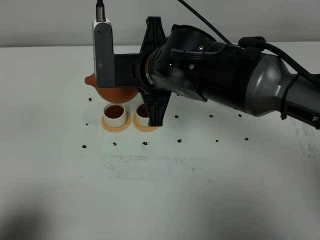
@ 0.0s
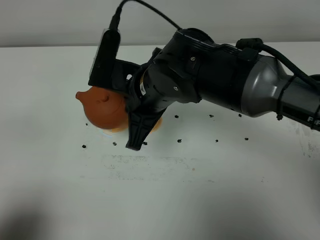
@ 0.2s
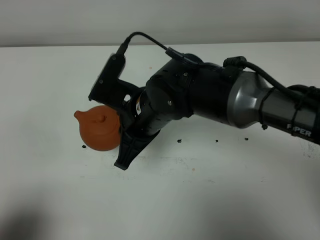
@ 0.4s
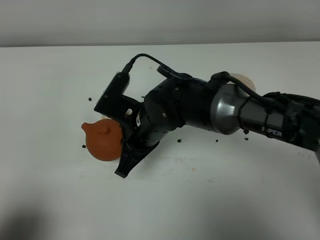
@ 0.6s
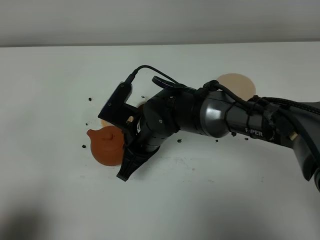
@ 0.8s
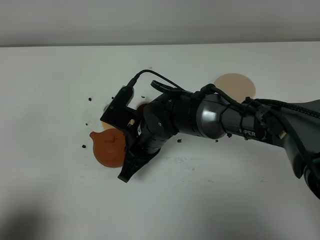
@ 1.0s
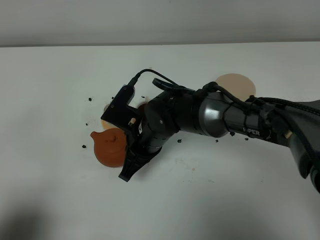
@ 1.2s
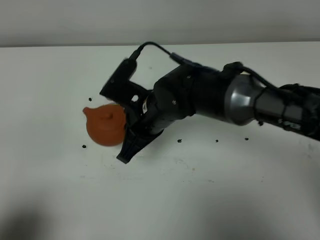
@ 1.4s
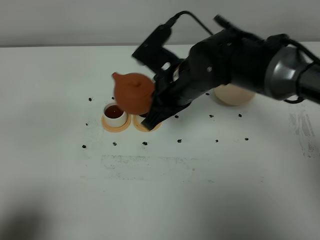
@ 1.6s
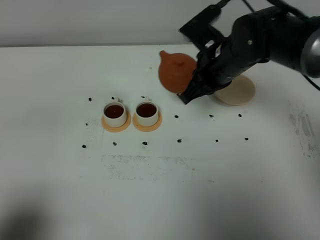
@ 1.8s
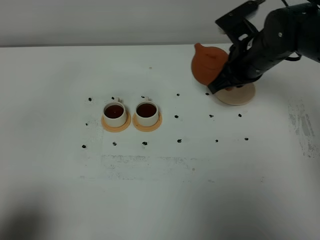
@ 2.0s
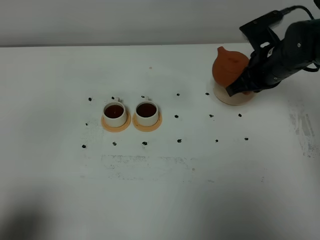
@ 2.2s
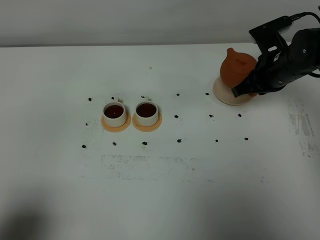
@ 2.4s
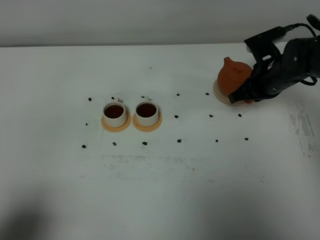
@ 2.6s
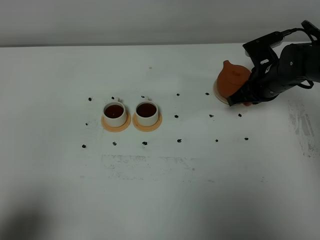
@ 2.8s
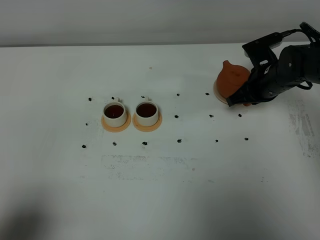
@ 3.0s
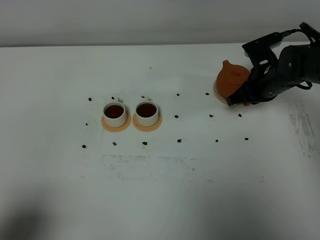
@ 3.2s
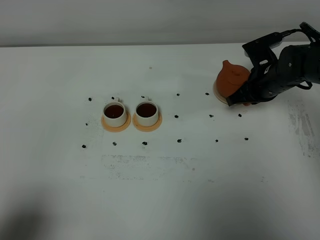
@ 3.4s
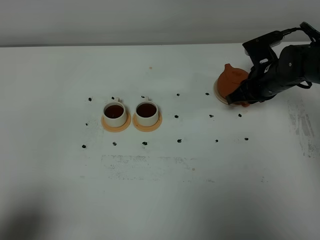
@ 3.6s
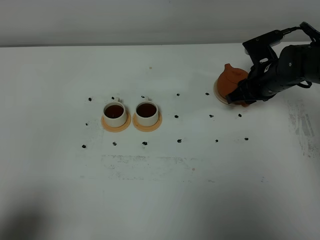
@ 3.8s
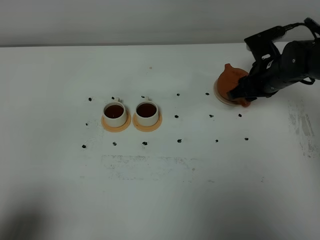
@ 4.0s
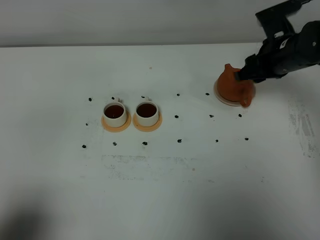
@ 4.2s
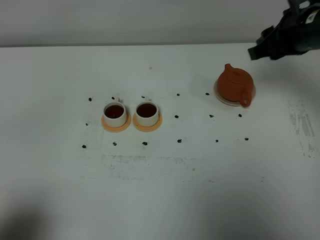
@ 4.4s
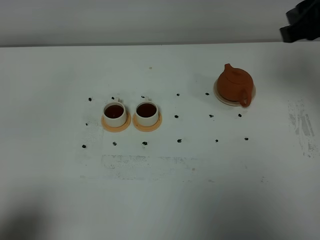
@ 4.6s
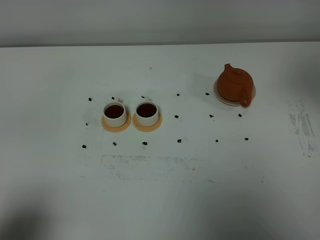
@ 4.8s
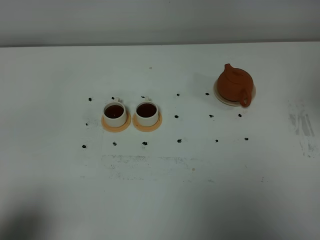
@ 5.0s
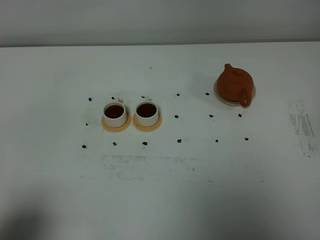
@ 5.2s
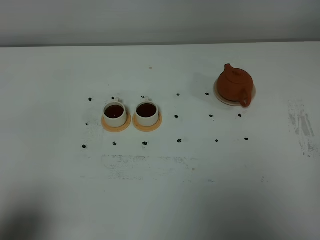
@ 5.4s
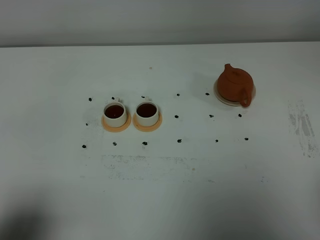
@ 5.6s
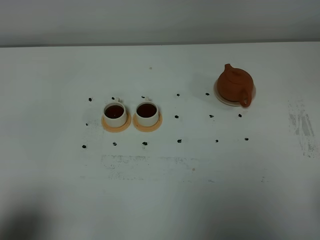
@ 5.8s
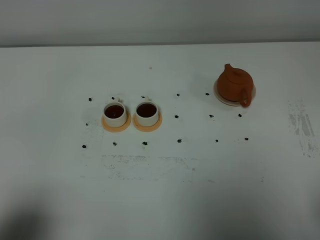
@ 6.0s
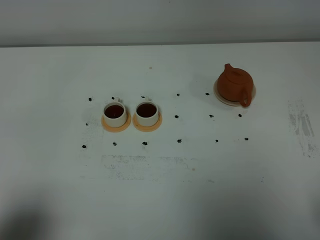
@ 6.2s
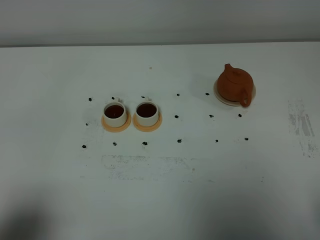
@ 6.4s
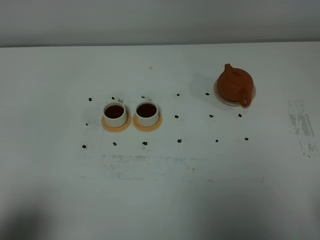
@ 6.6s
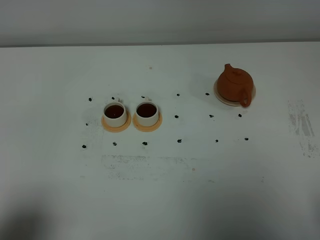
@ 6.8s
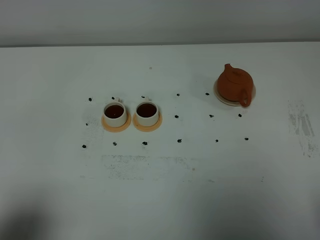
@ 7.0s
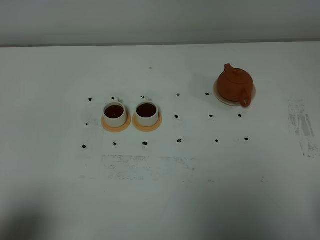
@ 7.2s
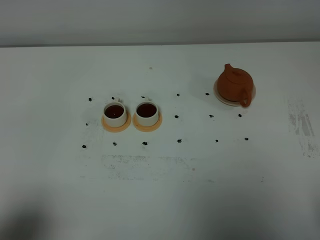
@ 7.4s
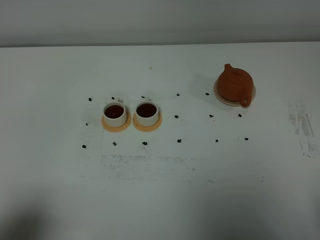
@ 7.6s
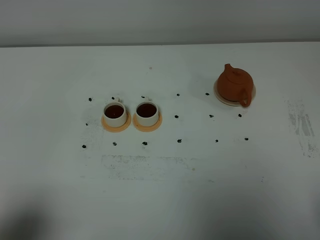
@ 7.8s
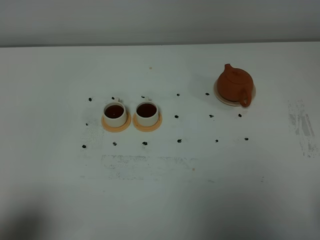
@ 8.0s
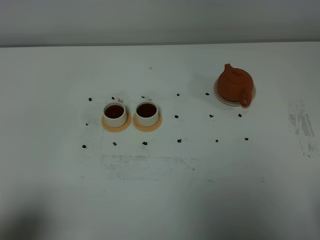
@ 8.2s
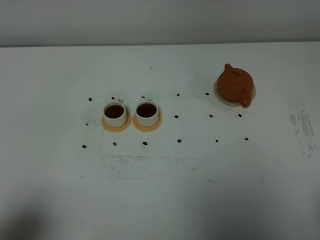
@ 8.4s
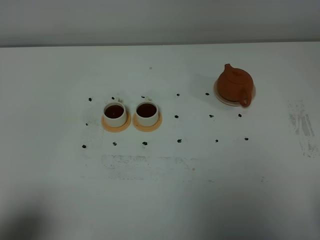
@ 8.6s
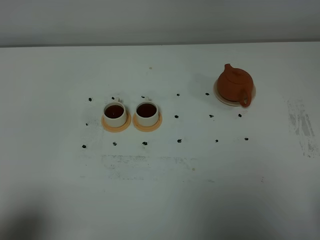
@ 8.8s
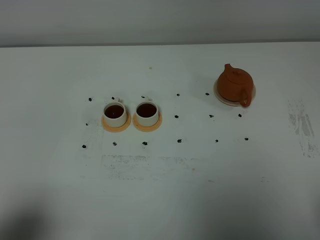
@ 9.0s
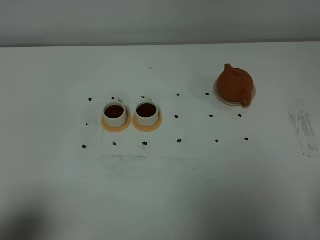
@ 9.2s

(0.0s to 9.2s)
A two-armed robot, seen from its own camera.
Task of the whole recording: grasp the brown teapot and pour the tea into the two white teacups one by one, put the brown teapot back in its original place.
0.0s - 1.6s: The right gripper reaches roughly 15 cm downward, then returns.
1.6s - 3.0s: The right gripper is displaced to the right, forward and downward by about 20 cm.
3.0s - 4.6s: The right gripper travels upward and backward by about 25 cm, and opens up.
4.6s - 6.2s: The right gripper goes about 30 cm backward and downward.
6.2s - 7.6s: Neither gripper changes place.
7.6s - 9.2s: Both grippers stay put.

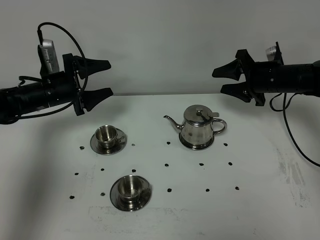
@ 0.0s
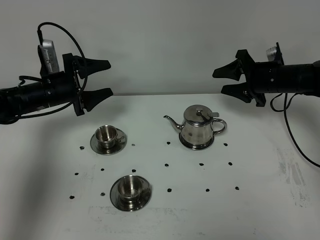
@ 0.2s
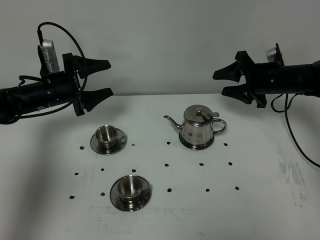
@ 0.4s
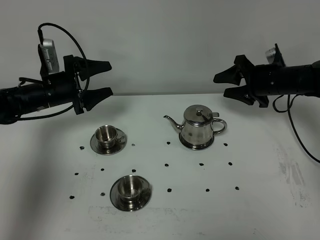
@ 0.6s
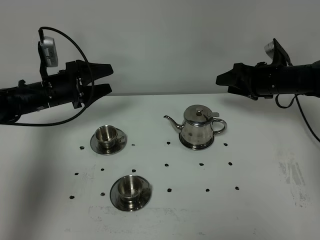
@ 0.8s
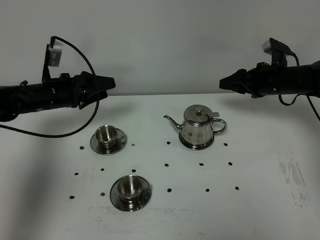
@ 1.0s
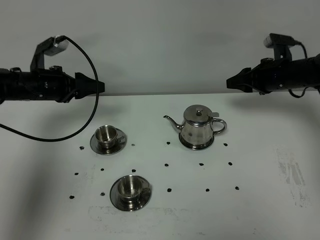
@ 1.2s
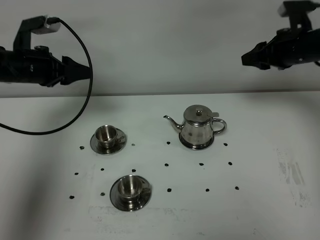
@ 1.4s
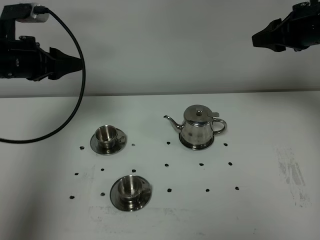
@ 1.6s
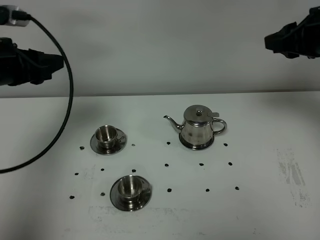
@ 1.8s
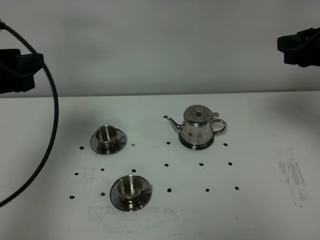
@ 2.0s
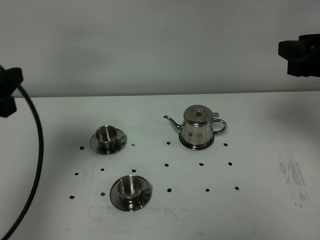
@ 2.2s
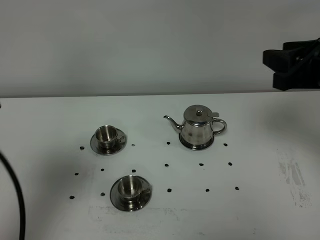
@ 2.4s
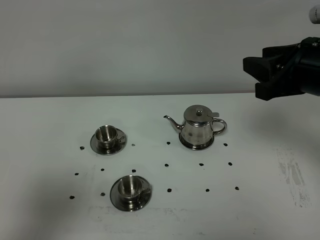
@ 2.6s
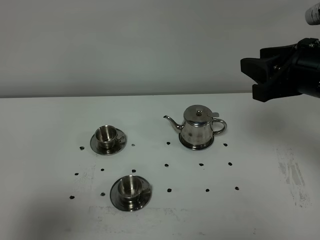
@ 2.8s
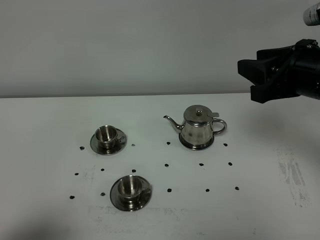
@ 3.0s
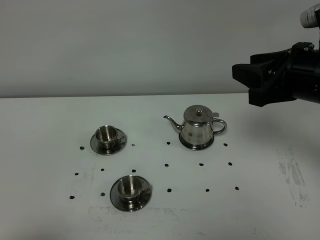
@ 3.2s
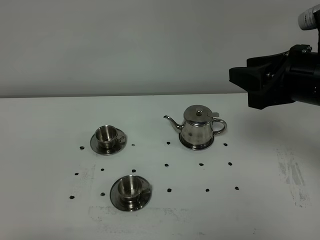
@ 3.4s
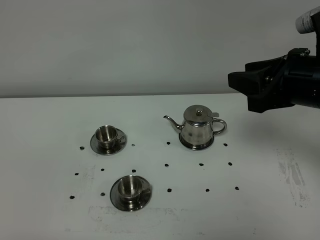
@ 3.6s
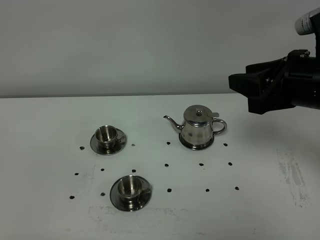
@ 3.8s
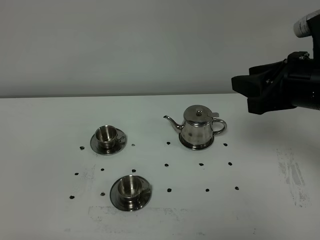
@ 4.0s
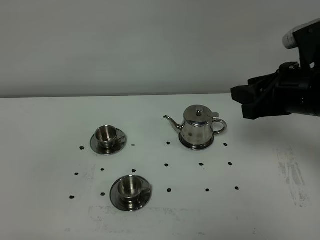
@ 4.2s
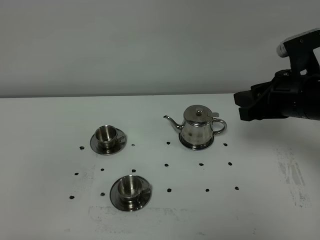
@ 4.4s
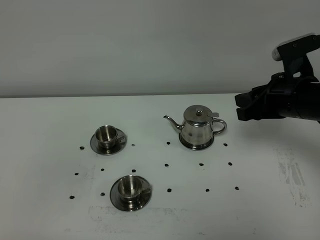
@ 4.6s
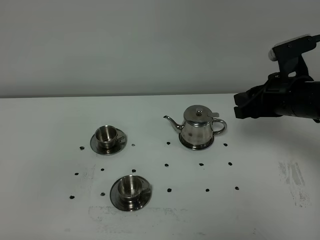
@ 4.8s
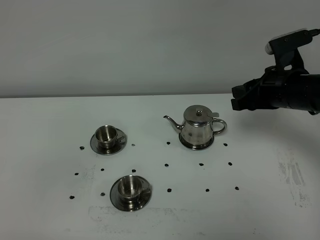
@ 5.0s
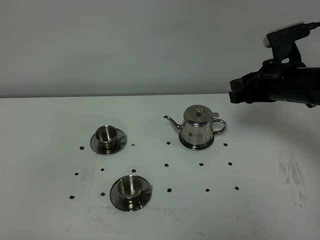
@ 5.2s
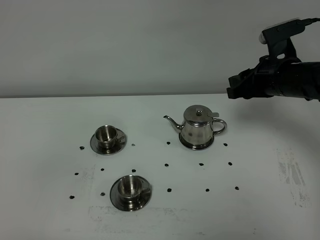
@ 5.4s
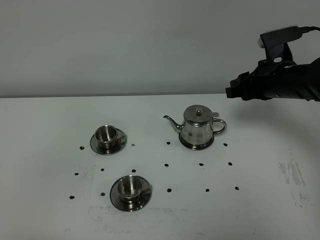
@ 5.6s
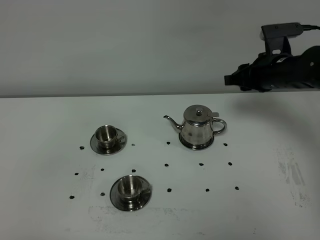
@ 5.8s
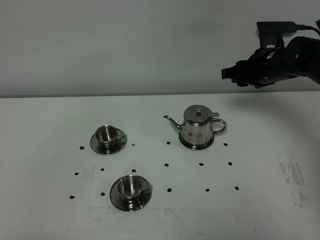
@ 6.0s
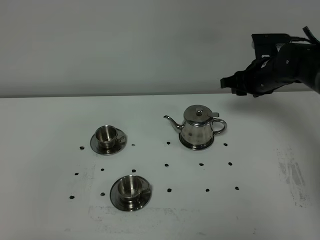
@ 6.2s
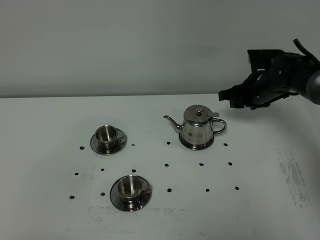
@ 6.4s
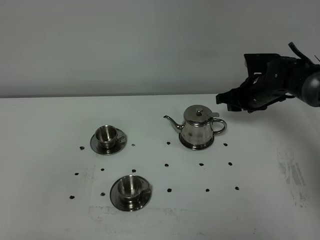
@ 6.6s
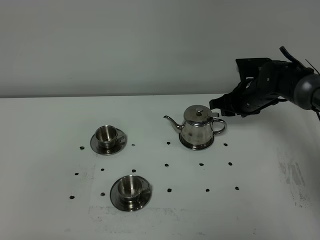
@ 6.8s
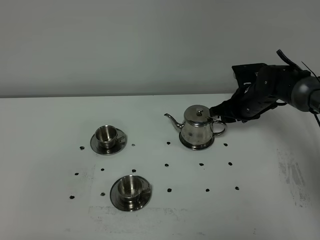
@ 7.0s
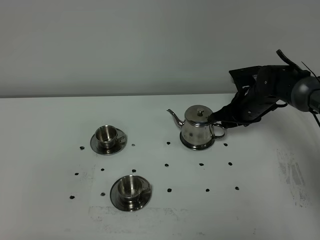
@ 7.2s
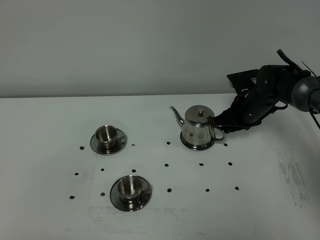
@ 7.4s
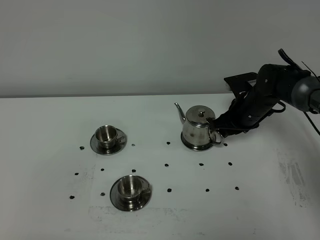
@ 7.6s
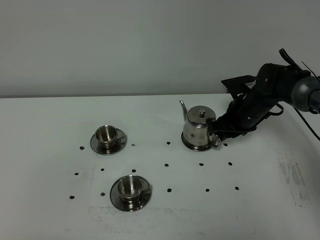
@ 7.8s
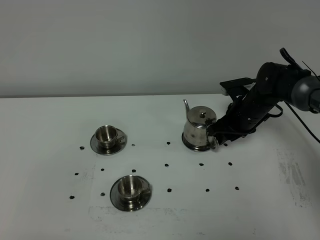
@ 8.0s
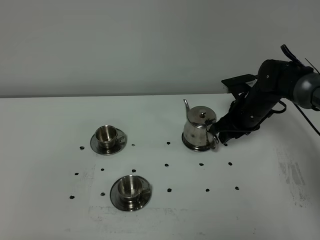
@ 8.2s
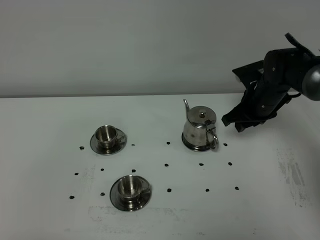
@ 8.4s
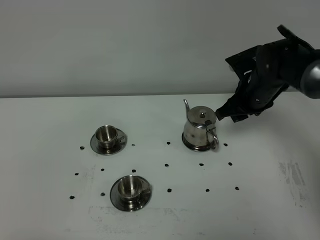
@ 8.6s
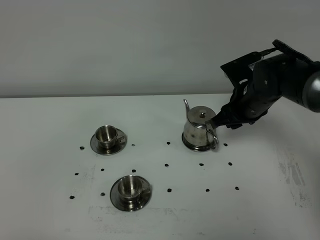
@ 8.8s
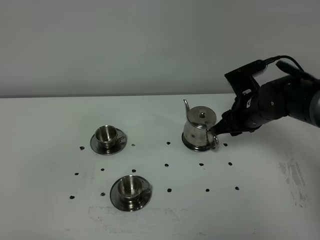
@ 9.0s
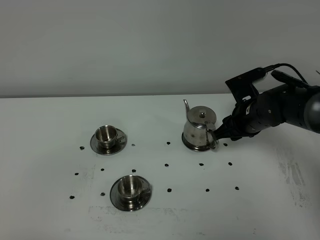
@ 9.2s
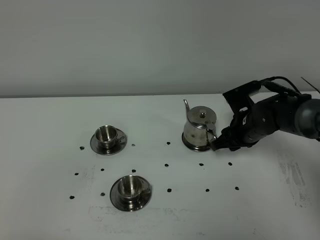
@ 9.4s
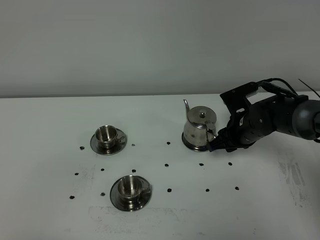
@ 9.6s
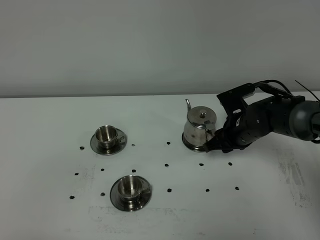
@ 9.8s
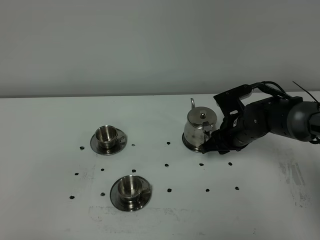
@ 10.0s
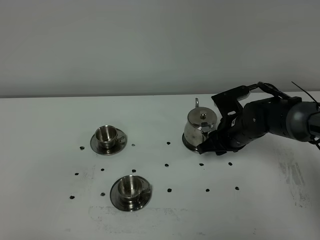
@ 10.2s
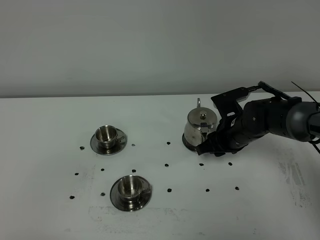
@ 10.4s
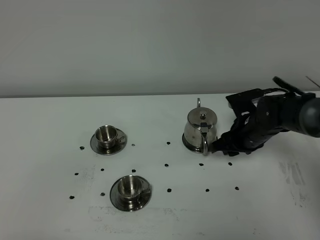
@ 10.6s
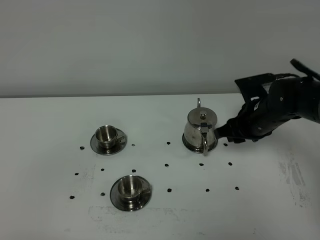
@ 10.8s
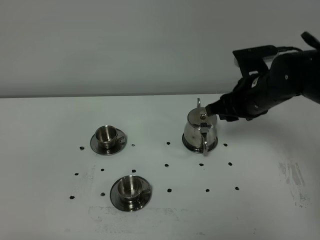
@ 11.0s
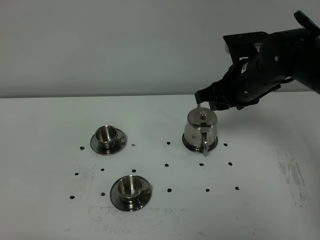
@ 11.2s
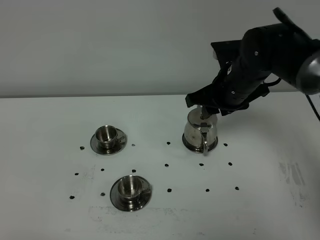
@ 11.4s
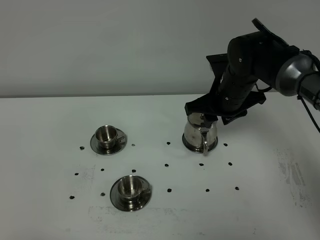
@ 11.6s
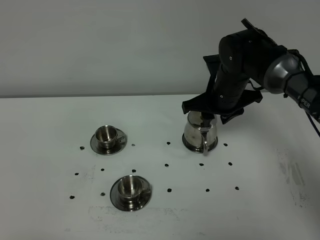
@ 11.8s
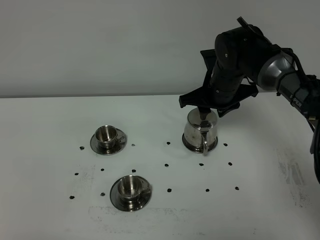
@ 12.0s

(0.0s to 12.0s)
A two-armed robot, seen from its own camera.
Task of the whole recording: grasp the stainless steel teapot and pour the tea into the two stainless steel teacups one by one, put the stainless steel teapot back in its original place.
0.0s - 1.6s: Both grippers move upward and backward, roughly 15 cm. The left gripper closes its fingers.
1.6s - 3.0s: The right gripper shifts about 15 cm backward; the left gripper moves backward, approximately 35 cm.
3.0s - 4.4s: The right gripper travels downward by about 5 cm; the left gripper travels backward by approximately 5 cm.
4.4s - 6.0s: The right gripper heads forward, covering some 15 cm.
6.0s - 7.6s: The right gripper is displaced downward by some 10 cm.
7.6s - 9.0s: The right gripper heads backward, covering approximately 5 cm.
9.0s - 10.4s: The right gripper goes about 5 cm downward.
10.4s - 12.0s: The right gripper is displaced upward by some 10 cm.

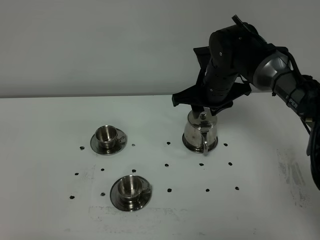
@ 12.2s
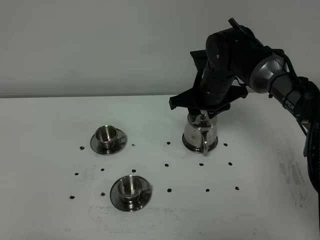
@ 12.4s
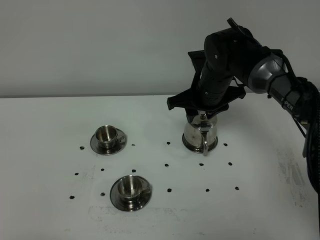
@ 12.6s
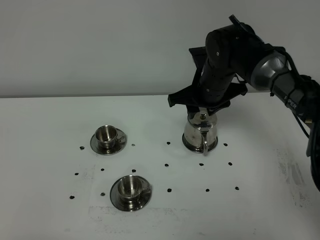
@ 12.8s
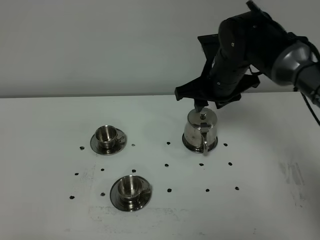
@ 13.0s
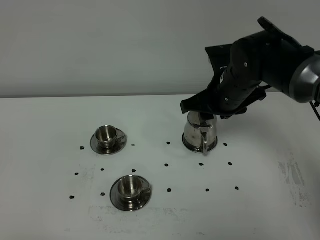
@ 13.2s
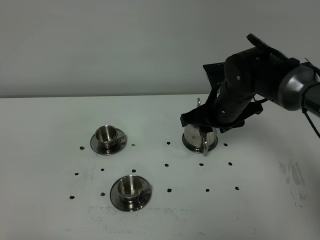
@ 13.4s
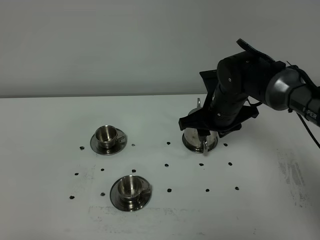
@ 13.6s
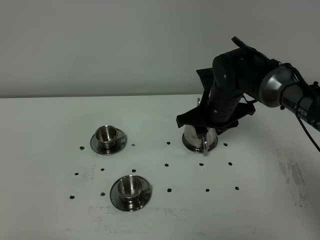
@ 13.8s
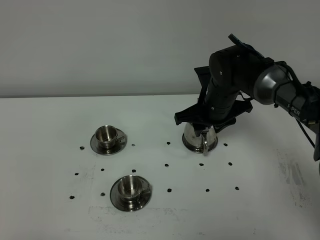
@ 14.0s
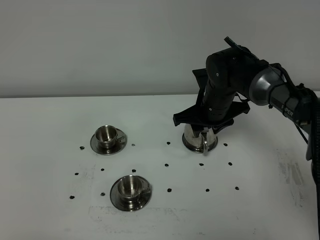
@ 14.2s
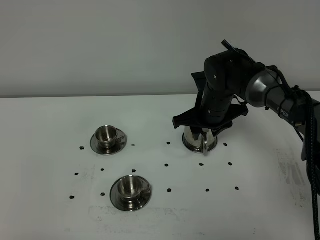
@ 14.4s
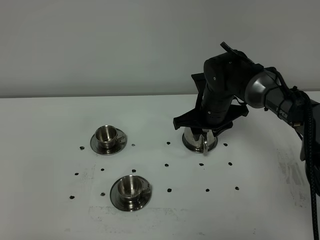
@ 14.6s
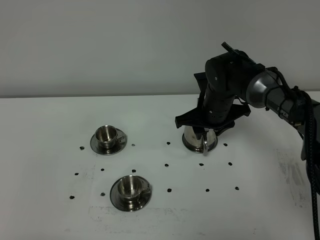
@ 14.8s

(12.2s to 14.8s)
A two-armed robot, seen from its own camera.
Task of the whole recording: grasp the stainless steel teapot and pour the tea into the two stainless steel teacups one by one, put the stainless steel teapot back in its original place.
12.2s - 13.4s: The right gripper shifts by roughly 5 cm.
13.4s - 14.8s: The right gripper ends up some 5 cm from where it was.
